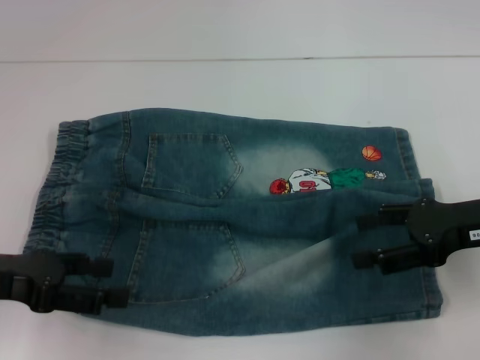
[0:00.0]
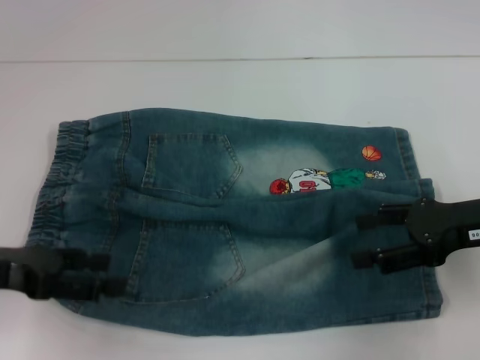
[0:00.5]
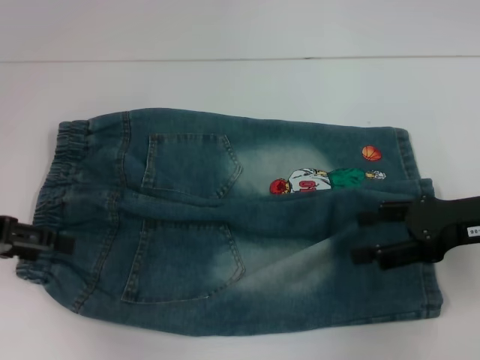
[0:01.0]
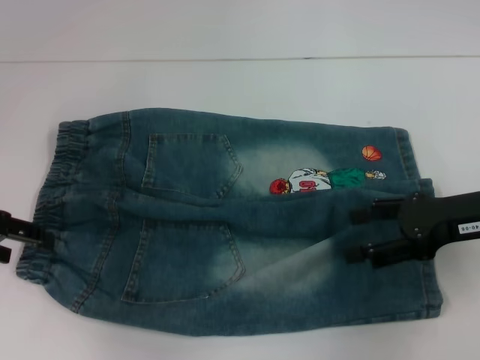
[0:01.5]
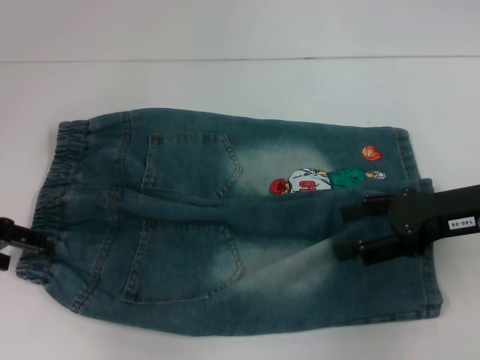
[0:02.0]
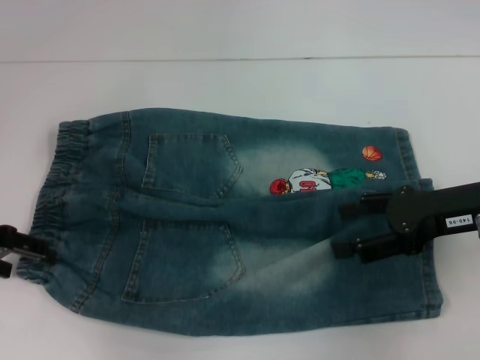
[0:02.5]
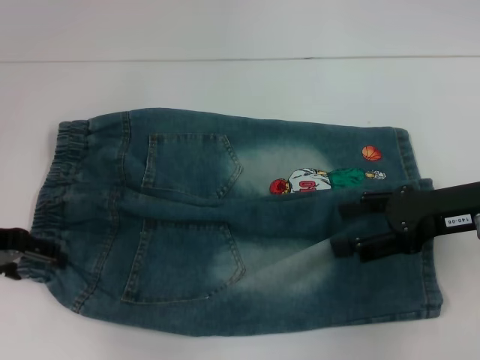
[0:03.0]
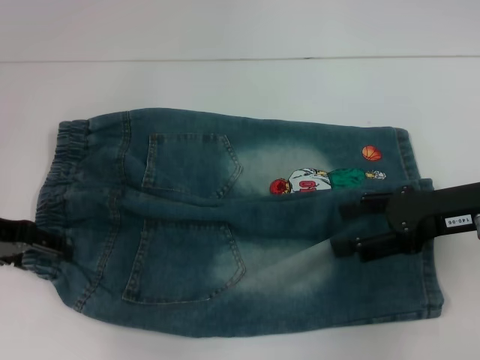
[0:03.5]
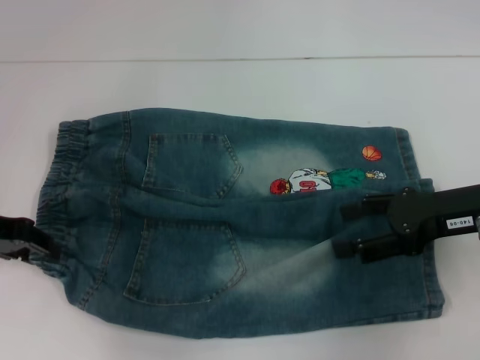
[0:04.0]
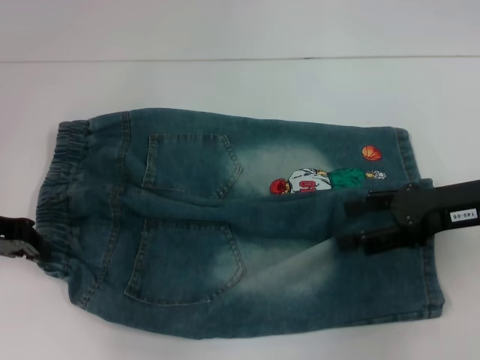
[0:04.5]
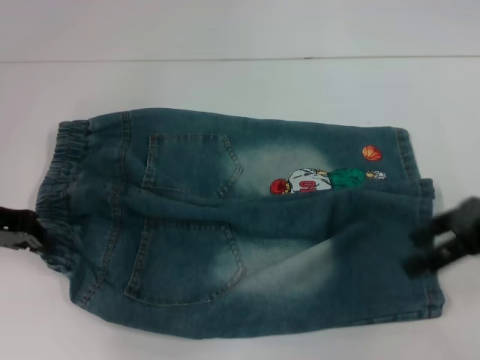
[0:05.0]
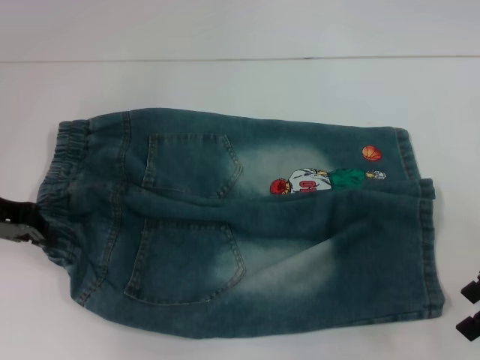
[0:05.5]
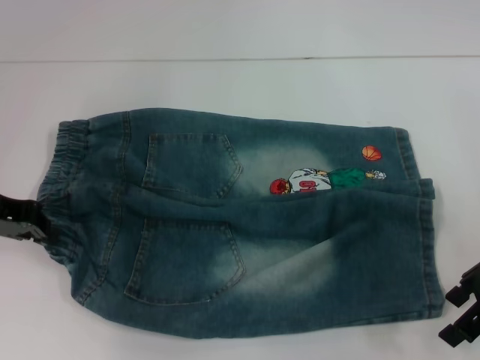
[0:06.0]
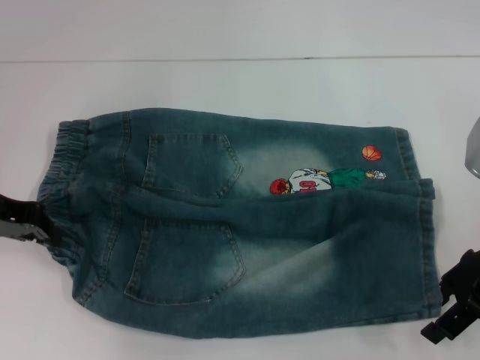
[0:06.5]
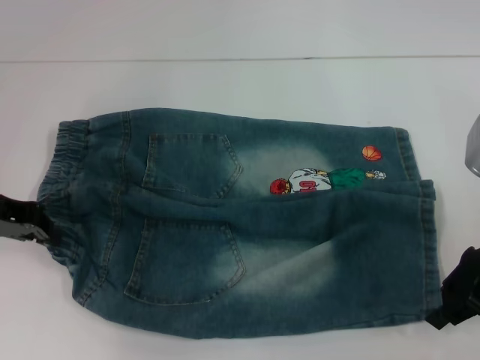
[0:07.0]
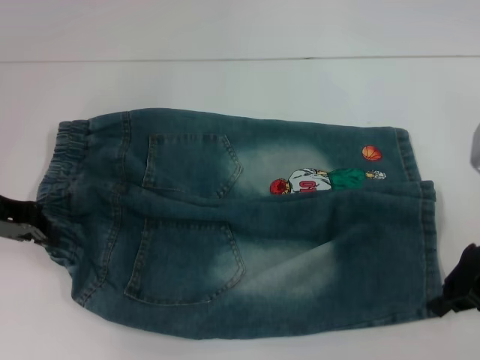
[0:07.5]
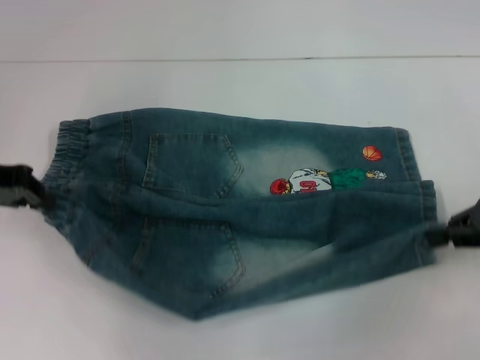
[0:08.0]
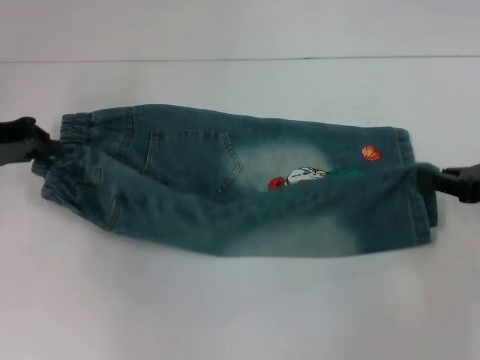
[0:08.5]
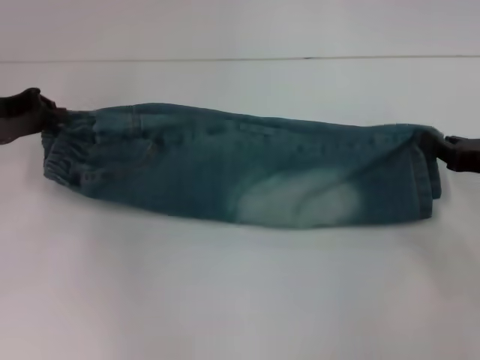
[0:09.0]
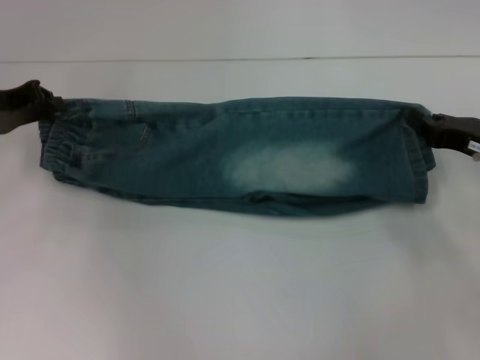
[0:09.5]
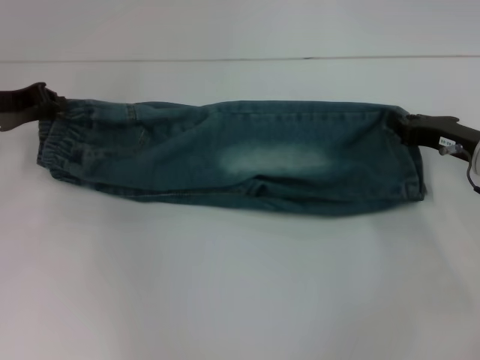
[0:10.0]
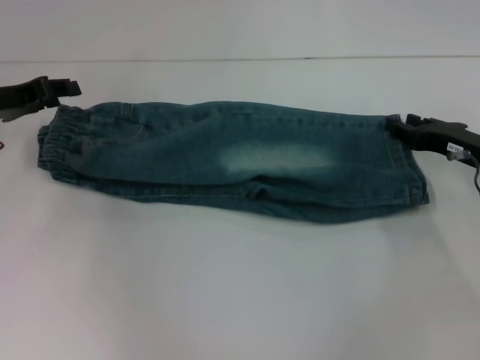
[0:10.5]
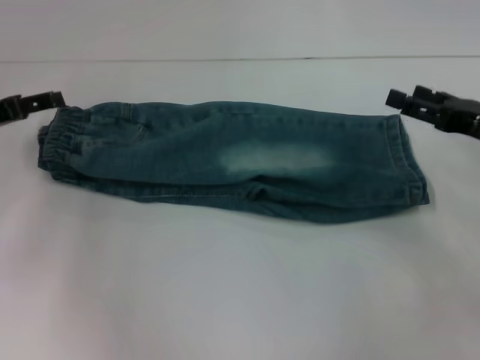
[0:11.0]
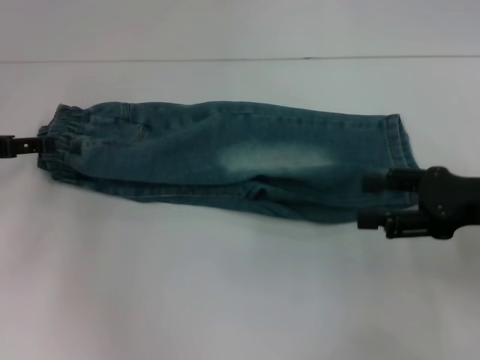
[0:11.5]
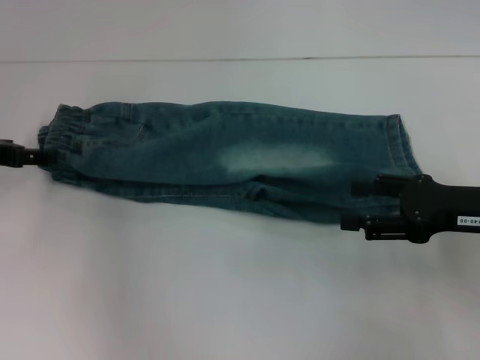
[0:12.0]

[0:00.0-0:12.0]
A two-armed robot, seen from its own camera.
Step, 0:00.0 to 0:04.0: Hold the lower left waistband with your left hand.
Step, 0:04.5 to 0:07.0: Grab the lower right pant leg with your right hand.
Step, 0:07.5 to 0:10.0: Fold upward with your right hand.
0:00.0 to 0:02.0: The left gripper goes roughly 10 cm forward.
0:02.0 to 0:04.0: The left gripper closes.
0:04.0 to 0:06.0: The left gripper closes.
0:06.0 to 0:08.0: The right gripper closes up.
0:08.0 to 0:10.0: The right gripper moves downward, roughly 10 cm. The left gripper changes place by about 5 cm.
0:10.0 to 0:12.0: The right gripper moves backward, about 10 cm, and opens its fingers, while the left gripper opens.

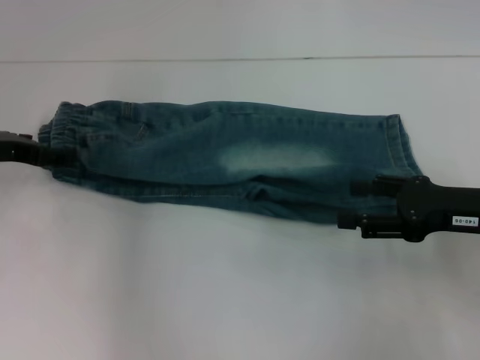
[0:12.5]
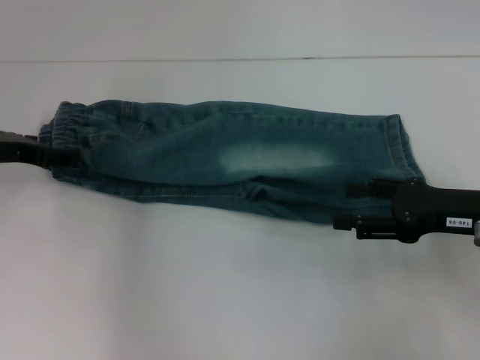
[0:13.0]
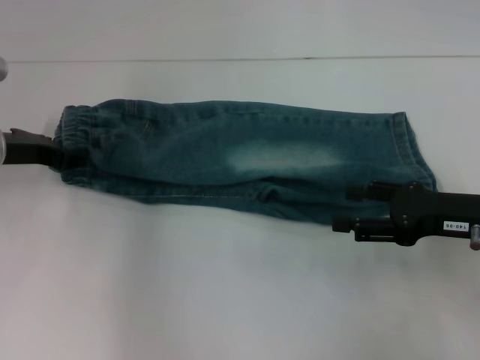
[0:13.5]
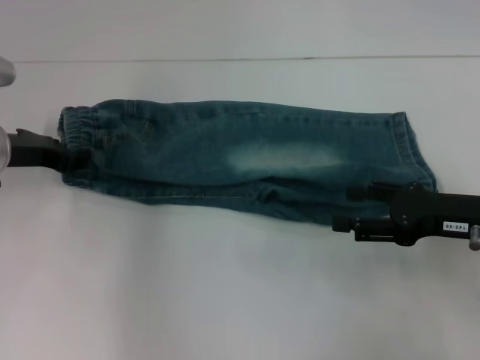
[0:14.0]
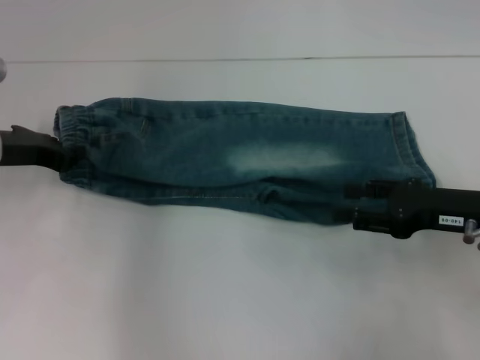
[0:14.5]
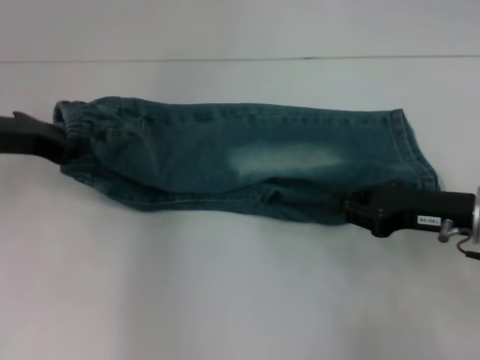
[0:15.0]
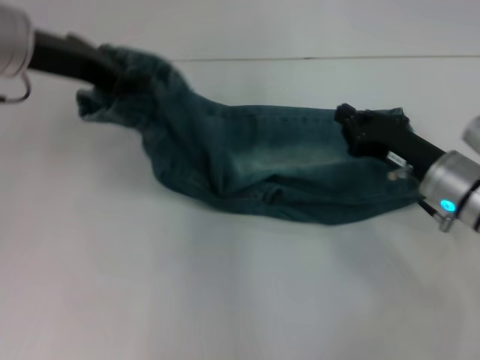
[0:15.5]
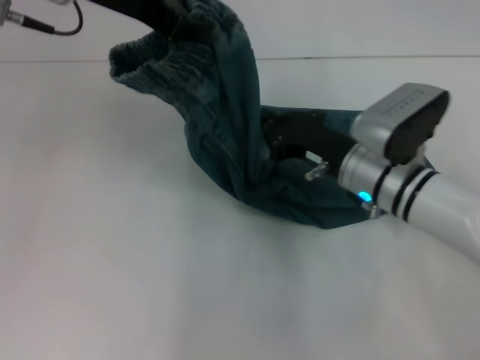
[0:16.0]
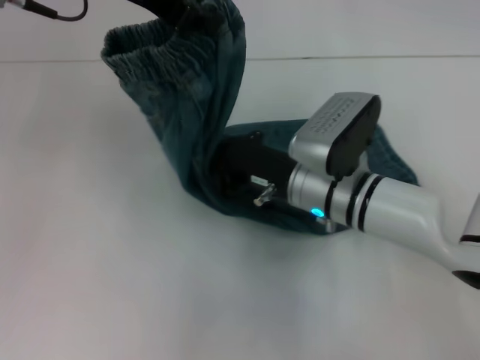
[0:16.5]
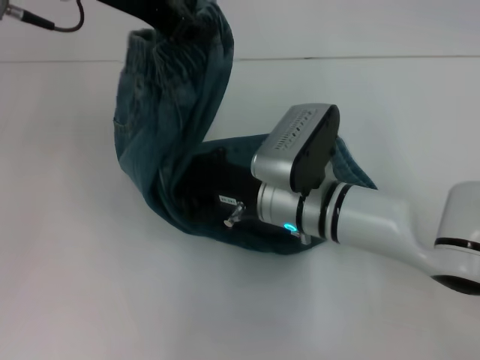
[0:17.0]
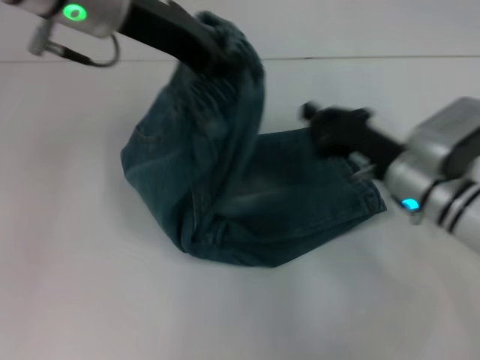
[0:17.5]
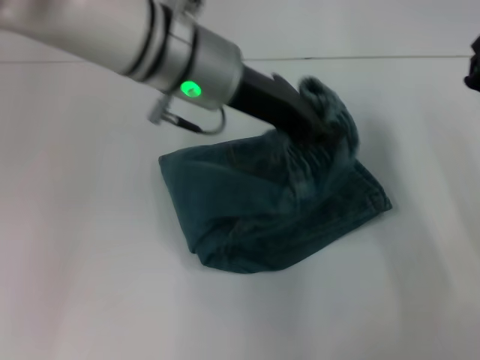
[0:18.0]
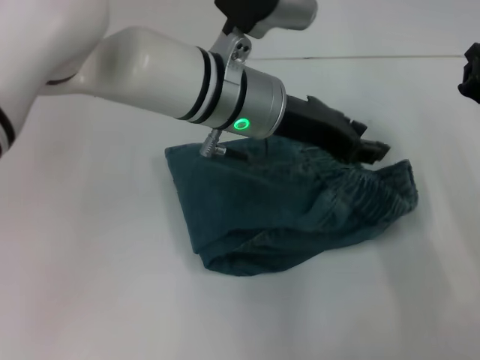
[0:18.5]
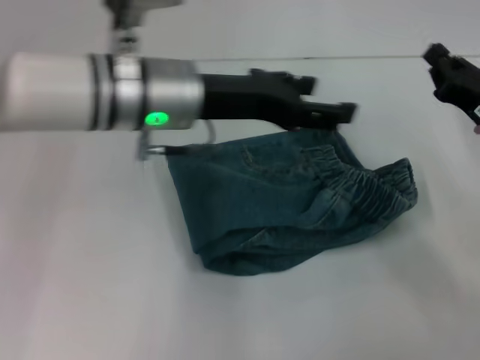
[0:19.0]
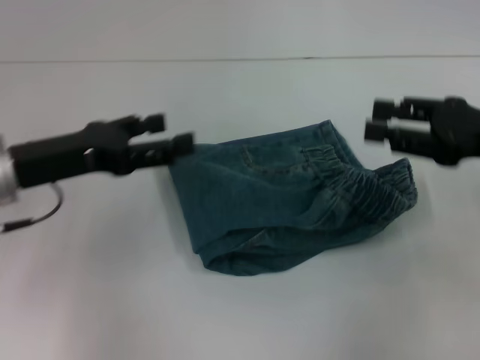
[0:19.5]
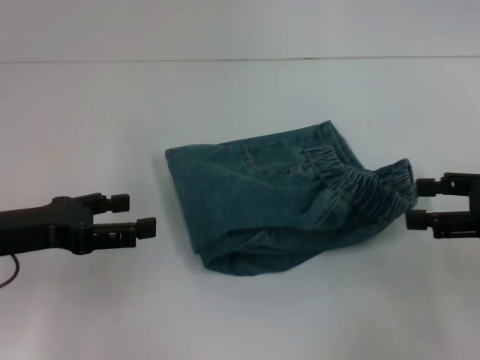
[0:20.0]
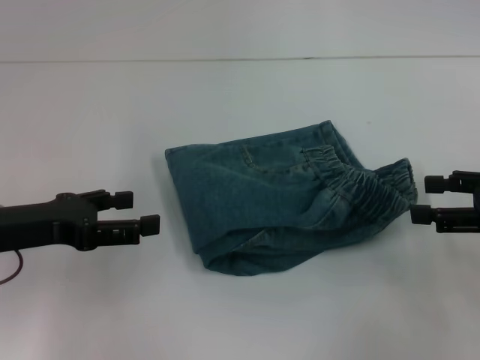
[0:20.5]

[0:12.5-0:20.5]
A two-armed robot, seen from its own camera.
Step, 0:13.5 to 0:17.0: Press the middle of the pants with your right hand.
Step, 0:17.5 to 0:18.5: Fold to the right with your left hand.
0:12.5 to 0:14.5: The left gripper closes its fingers.
0:14.5 to 0:16.5: The right gripper heads to the left, covering approximately 20 cm, and closes its fingers. Meanwhile the left gripper shifts approximately 25 cm upward and to the right.
0:16.5 to 0:18.5: The right gripper travels to the right by roughly 20 cm; the left gripper travels downward and to the right by approximately 20 cm.
0:18.5 to 0:20.5: The left gripper moves to the left and backward, roughly 25 cm, and opens. The right gripper goes approximately 10 cm upward, backward and to the right, and opens its fingers.

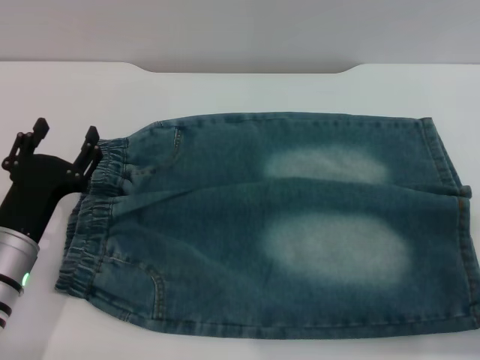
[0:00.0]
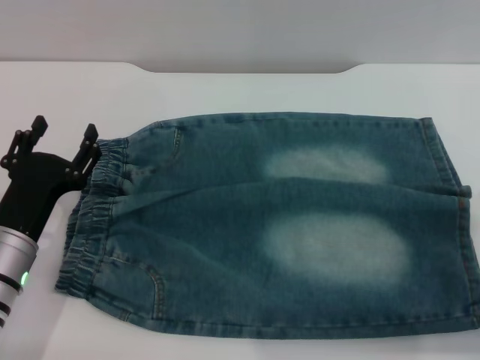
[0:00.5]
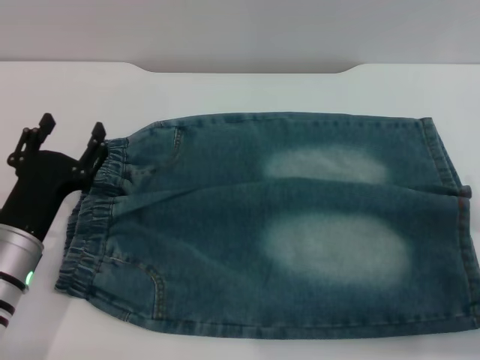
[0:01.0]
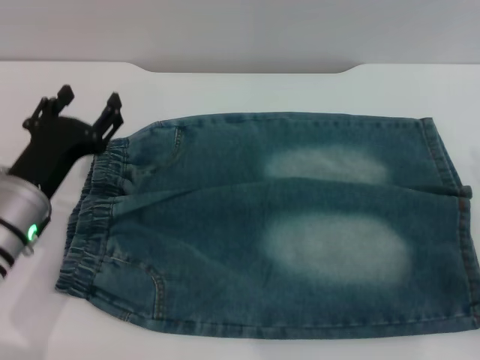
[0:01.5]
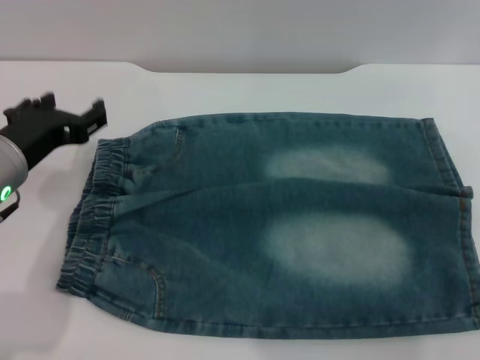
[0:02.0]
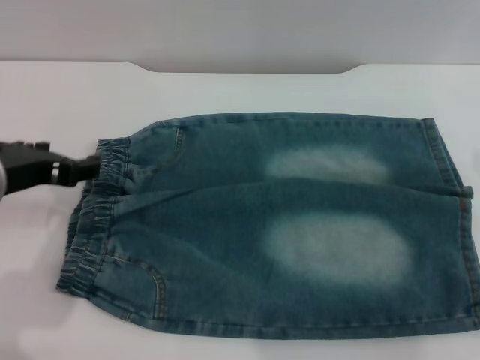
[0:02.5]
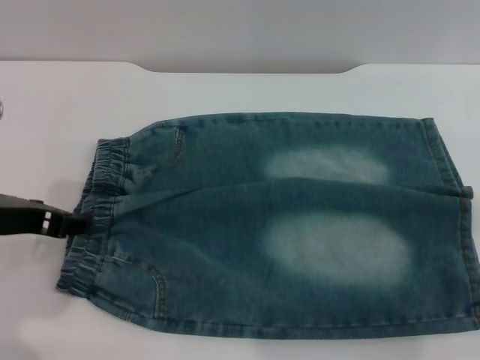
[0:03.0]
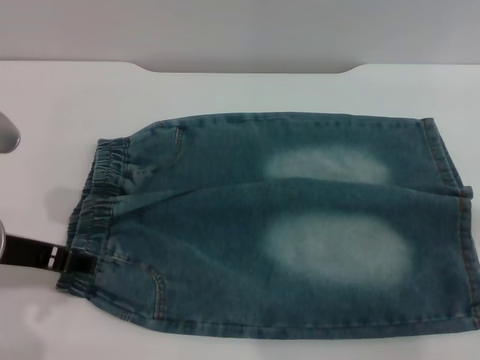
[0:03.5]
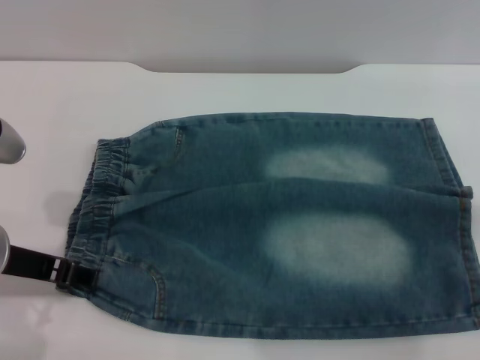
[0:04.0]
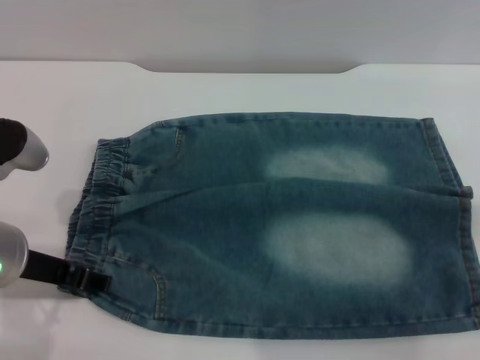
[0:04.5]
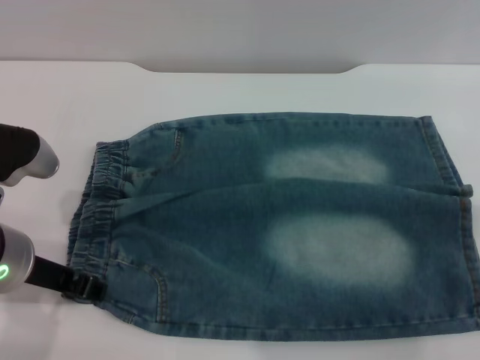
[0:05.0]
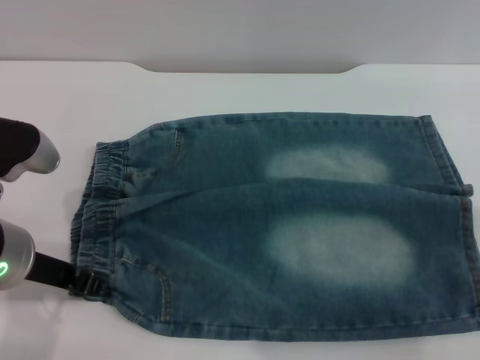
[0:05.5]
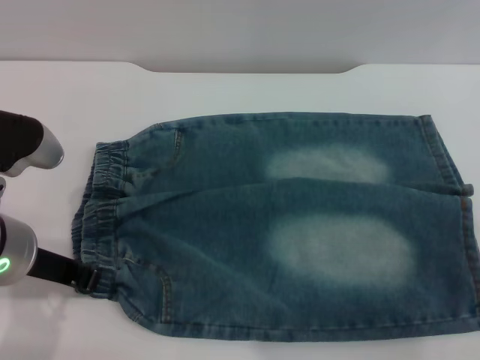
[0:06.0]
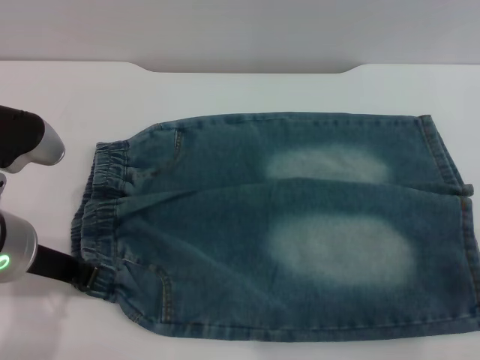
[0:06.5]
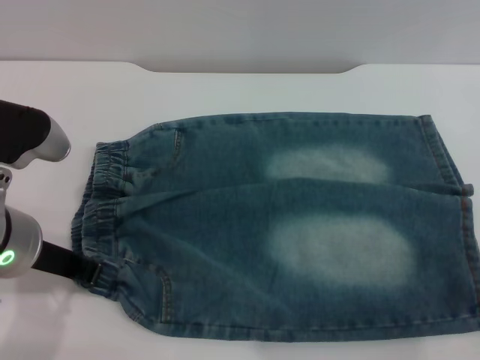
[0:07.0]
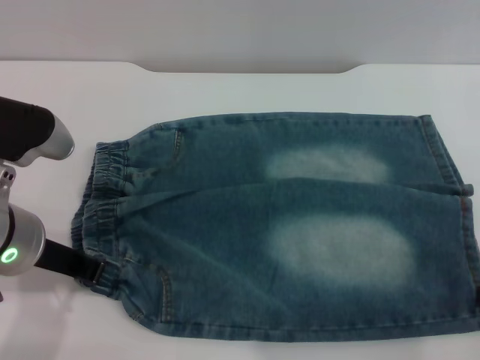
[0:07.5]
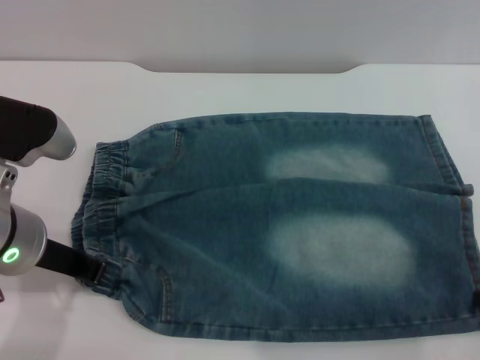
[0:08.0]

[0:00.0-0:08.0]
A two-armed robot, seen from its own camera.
0:00.0 to 0:02.0: The left gripper shifts about 10 cm upward.
0:04.0 to 0:06.0: The left gripper closes.
